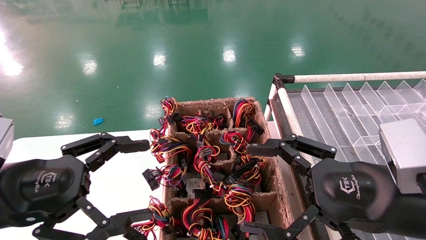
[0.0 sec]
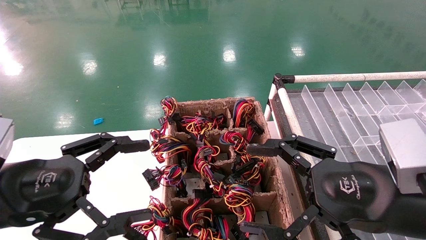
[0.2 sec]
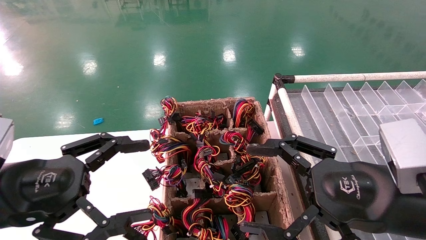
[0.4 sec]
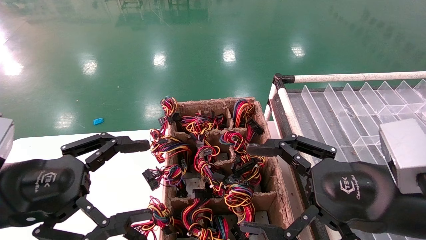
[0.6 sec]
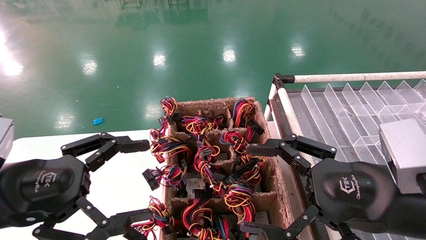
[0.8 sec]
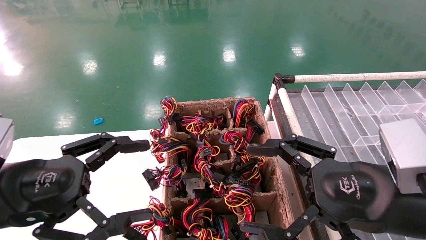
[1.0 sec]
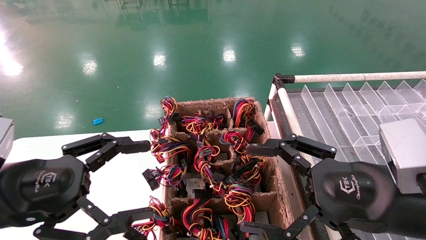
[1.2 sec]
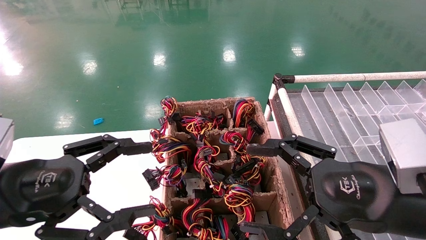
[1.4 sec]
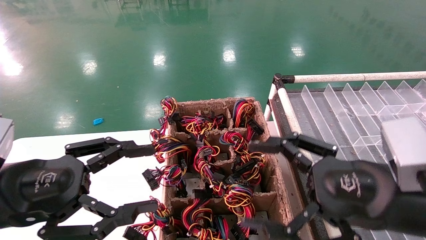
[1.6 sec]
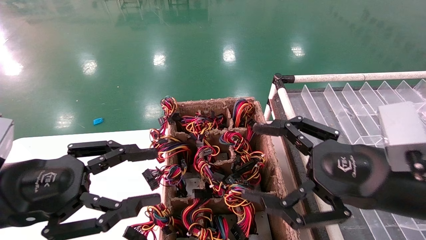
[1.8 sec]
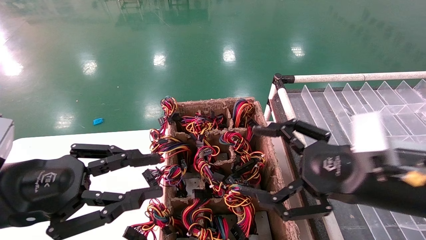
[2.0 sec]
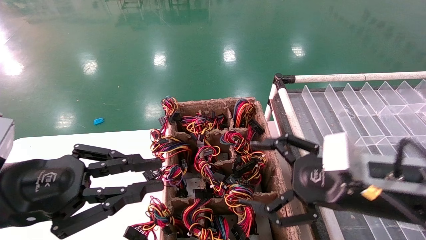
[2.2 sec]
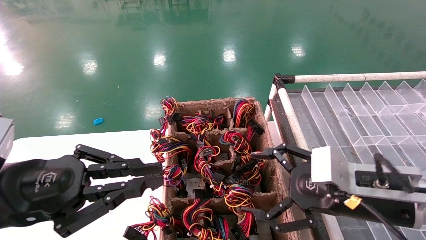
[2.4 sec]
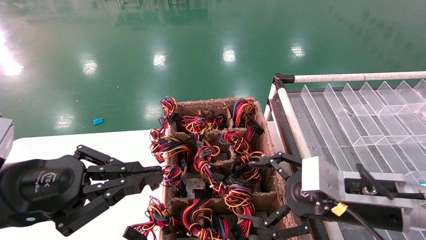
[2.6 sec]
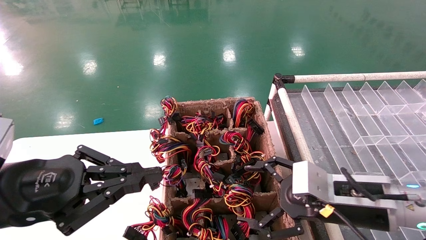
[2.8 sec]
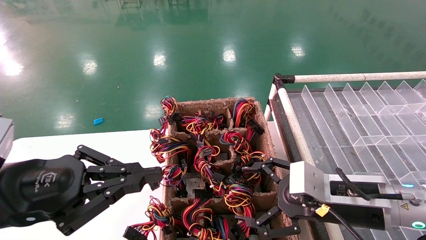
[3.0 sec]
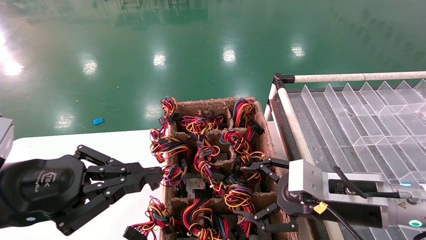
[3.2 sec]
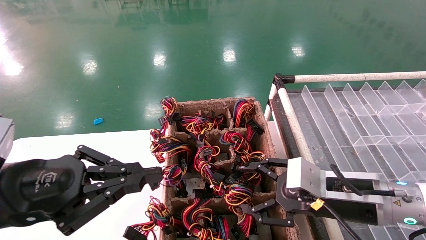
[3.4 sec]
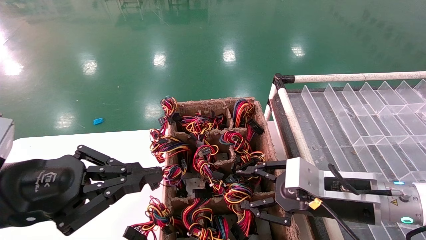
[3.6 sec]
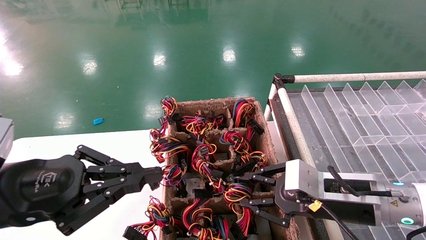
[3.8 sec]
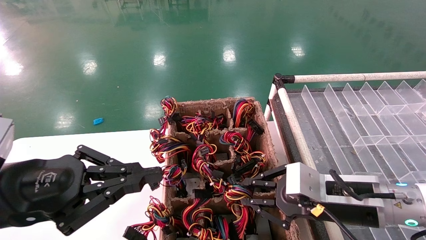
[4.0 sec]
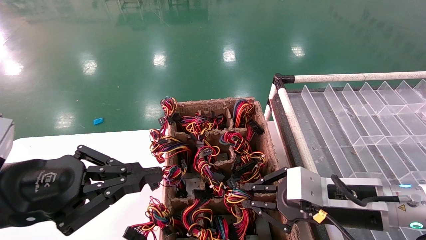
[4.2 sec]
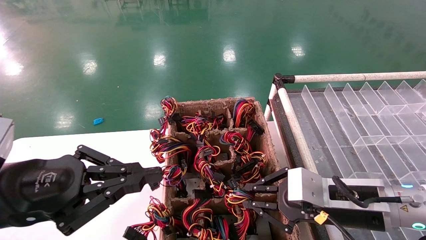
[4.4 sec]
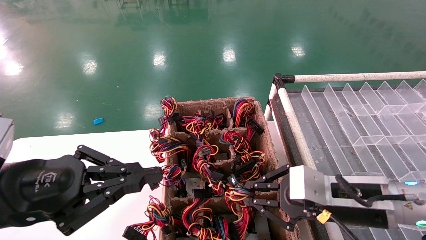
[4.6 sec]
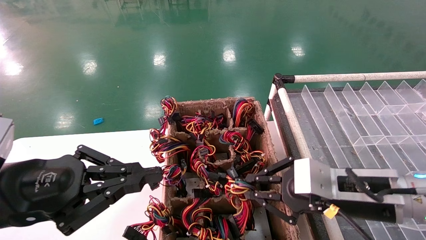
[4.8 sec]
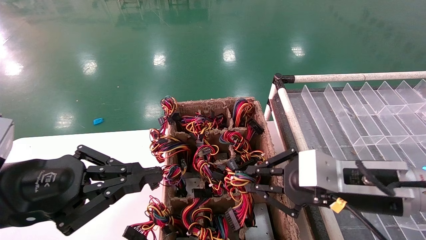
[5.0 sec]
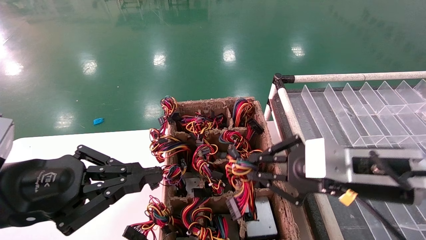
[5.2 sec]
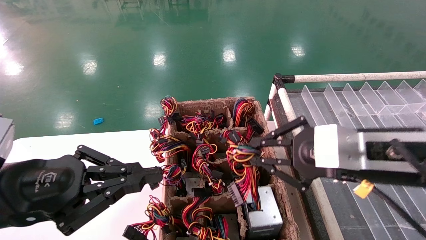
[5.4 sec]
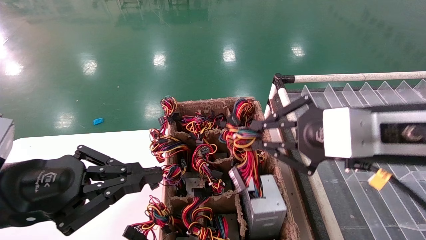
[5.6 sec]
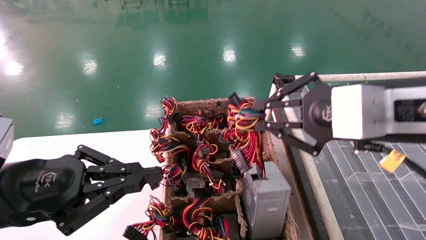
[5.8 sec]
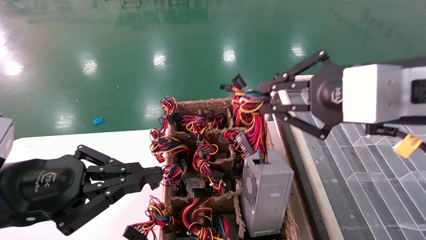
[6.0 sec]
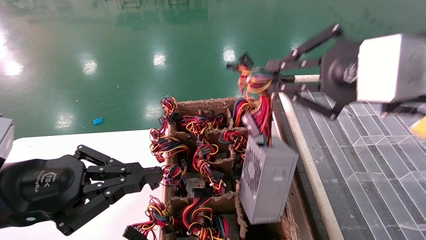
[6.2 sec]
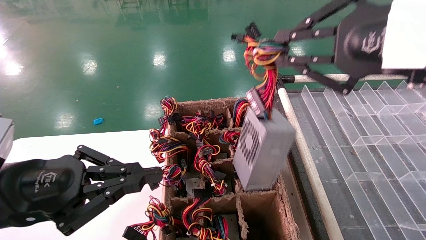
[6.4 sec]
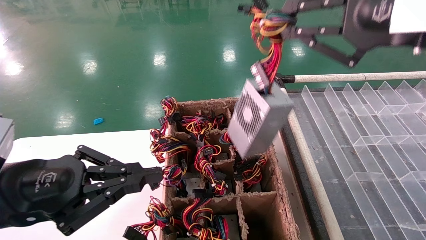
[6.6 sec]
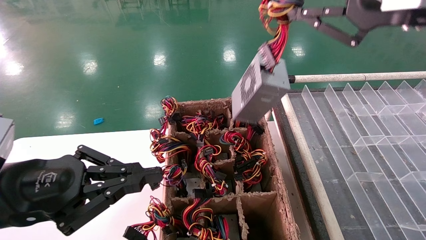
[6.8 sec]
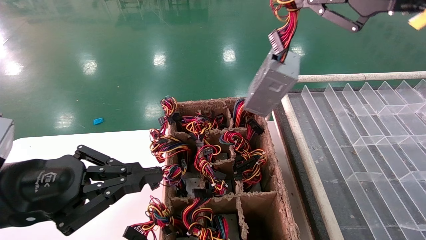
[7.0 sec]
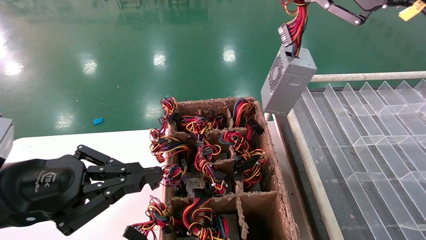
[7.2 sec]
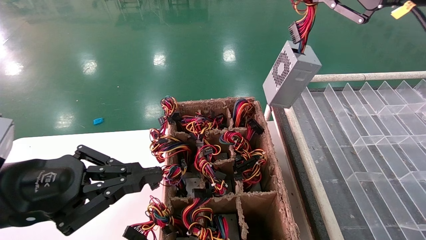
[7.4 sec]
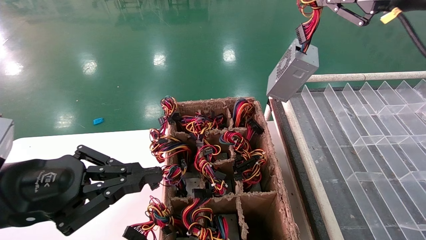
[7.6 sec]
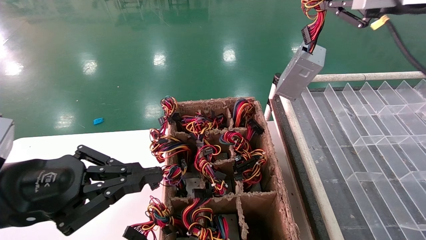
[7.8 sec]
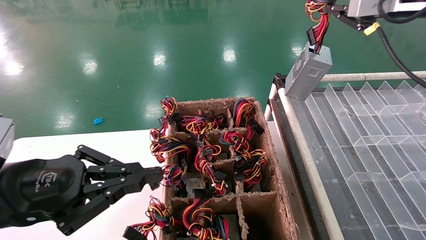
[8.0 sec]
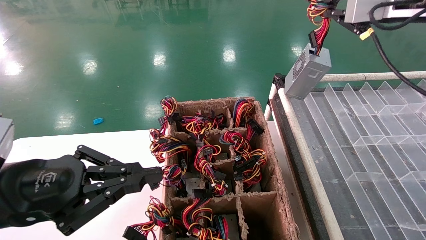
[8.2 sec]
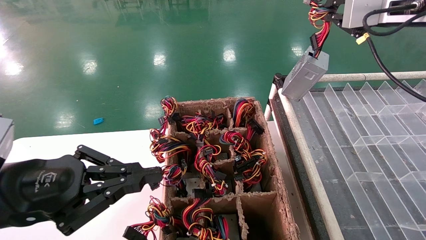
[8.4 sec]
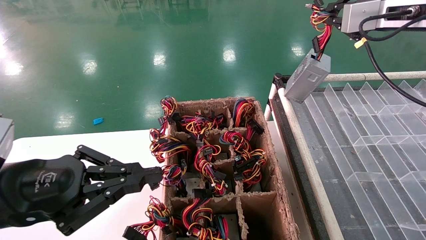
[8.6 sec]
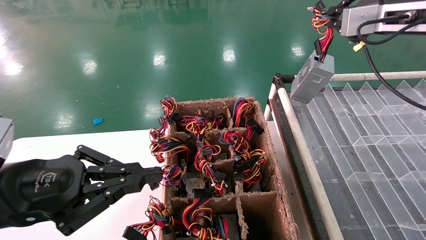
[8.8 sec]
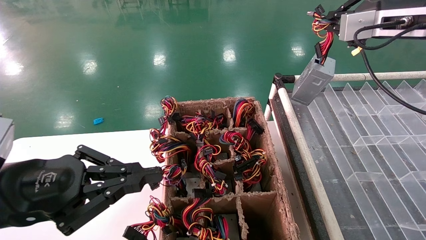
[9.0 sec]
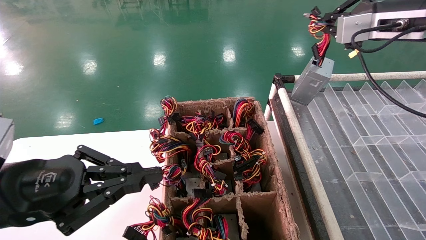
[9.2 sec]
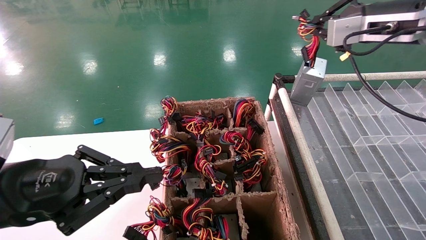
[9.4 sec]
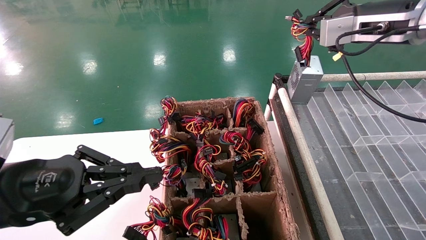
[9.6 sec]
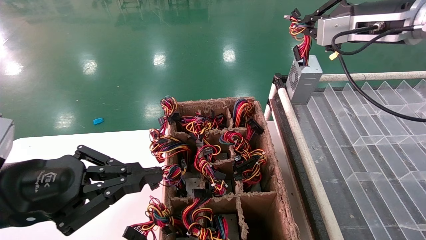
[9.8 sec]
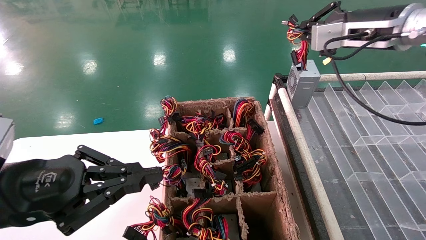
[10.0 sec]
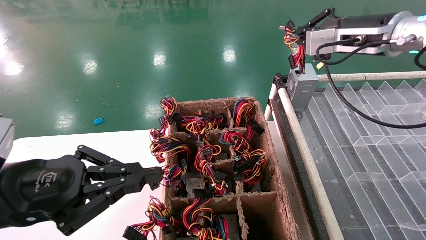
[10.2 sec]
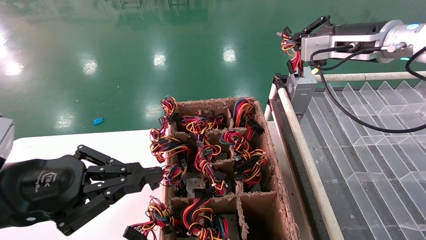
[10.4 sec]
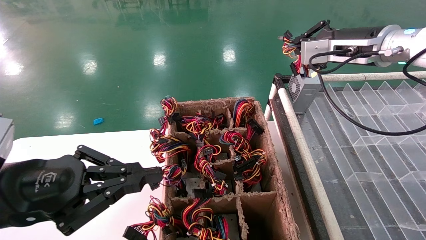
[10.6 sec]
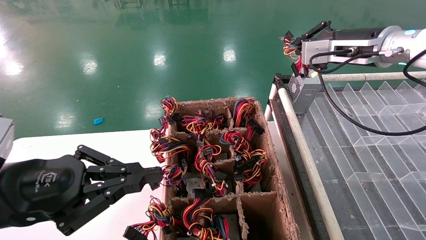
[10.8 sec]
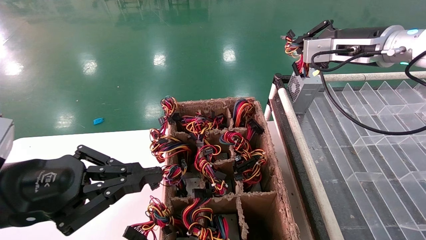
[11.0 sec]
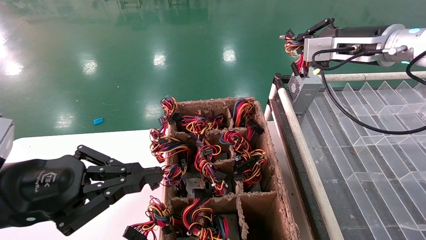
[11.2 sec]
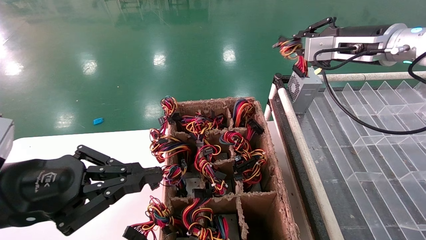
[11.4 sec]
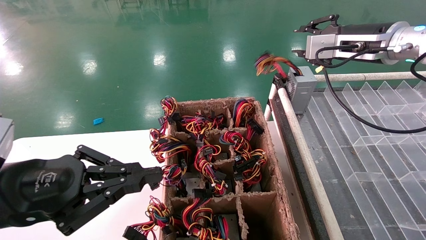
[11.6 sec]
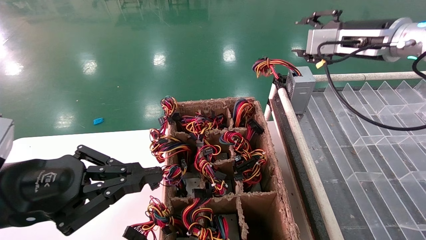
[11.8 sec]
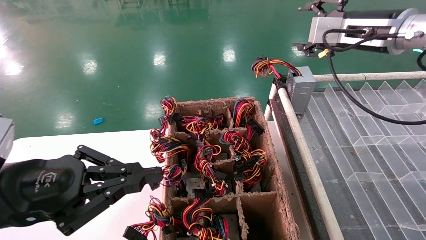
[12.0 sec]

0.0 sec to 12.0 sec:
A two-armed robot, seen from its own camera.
Step, 1.8 sec to 4.2 sec: Grab the main unit power supply from the containment box.
Step, 4.4 sec to 11.6 sec: Place the main unit power supply in the designated area.
0.0 sec to 1.6 sec: Both grippers stay about where they are.
1.6 sec to 3.0 sec: The right gripper shifts about 10 cm forward and downward, while the left gripper closes up.
3.0 sec to 4.4 sec: The right gripper closes its fingers.
4.4 sec to 6.0 sec: The right gripper shifts approximately 20 cm upward.
6.0 sec to 7.6 sec: The right gripper travels upward, forward and to the right by about 15 cm.
7.6 sec to 9.0 sec: The right gripper heads forward, covering roughly 10 cm.
9.0 sec to 10.4 sec: The right gripper ends up some 10 cm from where it was.
10.4 sec to 12.0 sec: The right gripper opens.

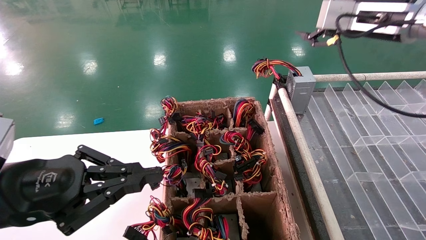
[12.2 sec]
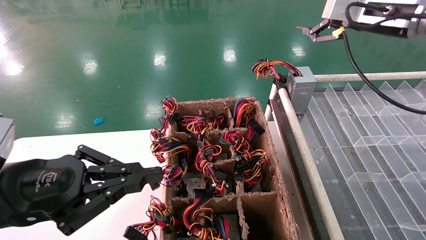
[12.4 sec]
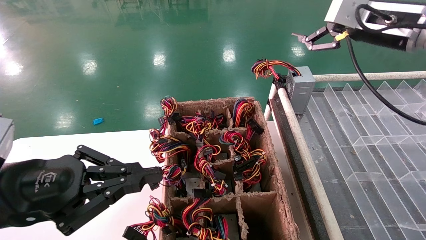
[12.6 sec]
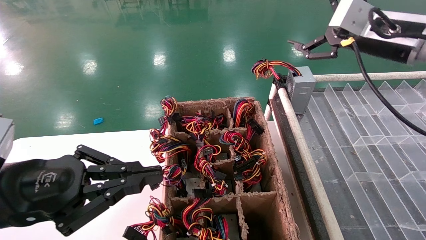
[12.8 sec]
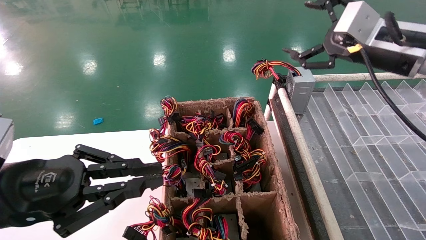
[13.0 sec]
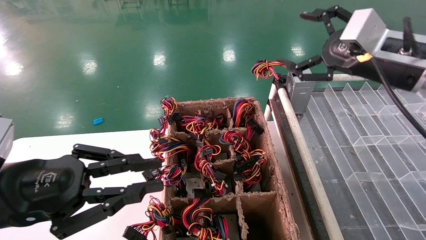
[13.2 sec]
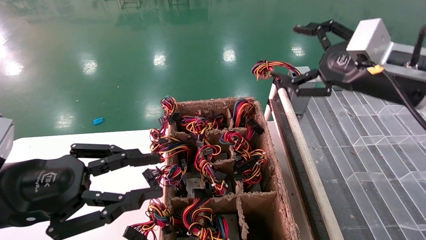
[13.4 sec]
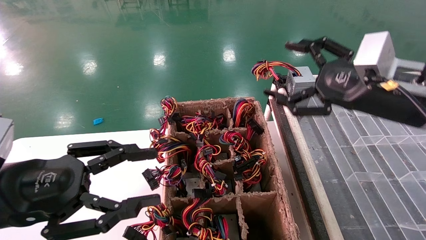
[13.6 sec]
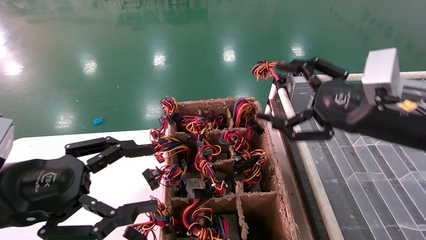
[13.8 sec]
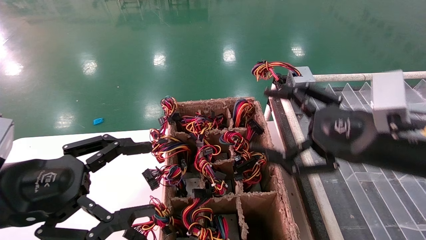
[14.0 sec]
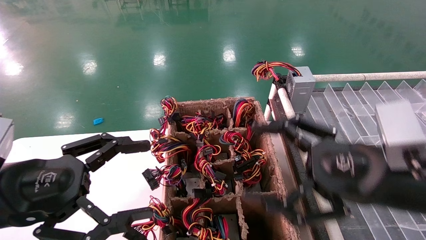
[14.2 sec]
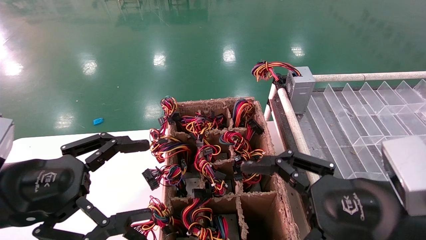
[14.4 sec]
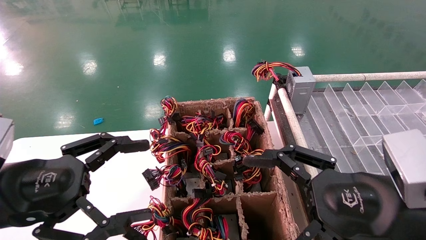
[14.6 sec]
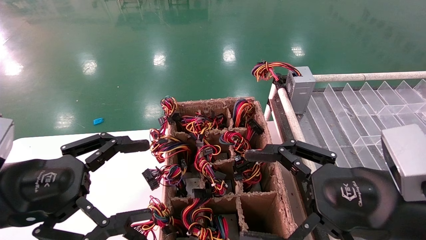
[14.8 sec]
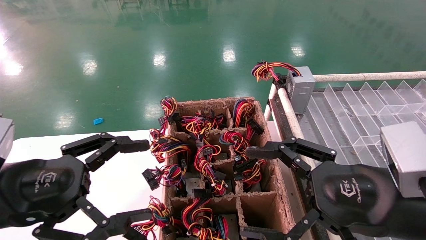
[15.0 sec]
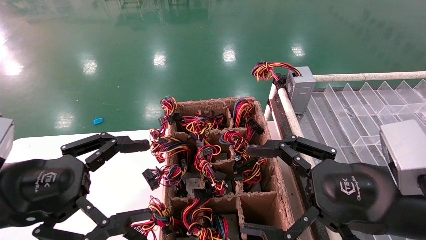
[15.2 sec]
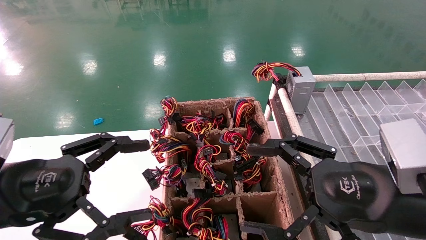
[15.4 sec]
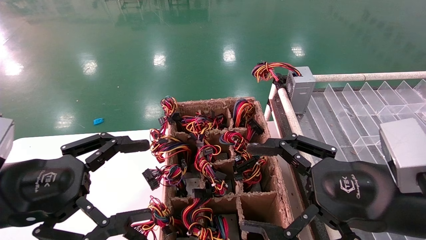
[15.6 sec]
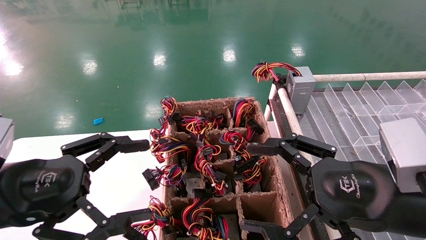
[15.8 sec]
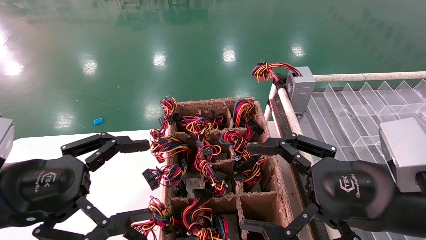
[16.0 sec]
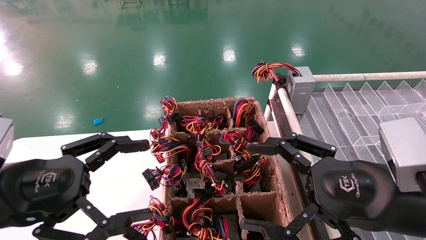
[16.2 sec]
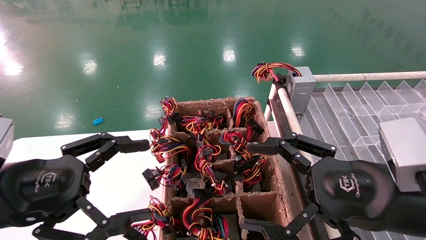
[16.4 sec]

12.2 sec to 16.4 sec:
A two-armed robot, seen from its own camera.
12.2 sec to 13.6 sec: The left gripper opens. The right gripper travels downward and backward by some 15 cm.
13.6 sec to 15.0 sec: The right gripper travels backward and downward by approximately 15 cm; the left gripper opens its fingers.
15.0 sec to 16.4 sec: Both grippers stay about where they are.
